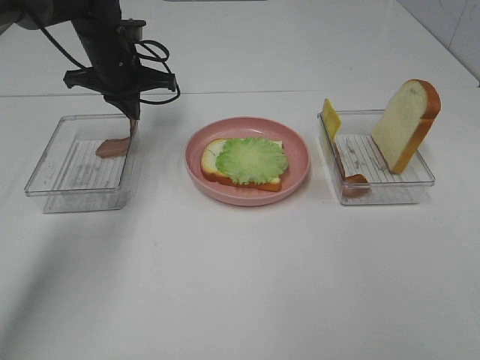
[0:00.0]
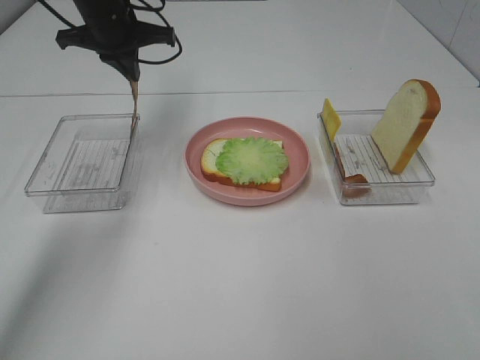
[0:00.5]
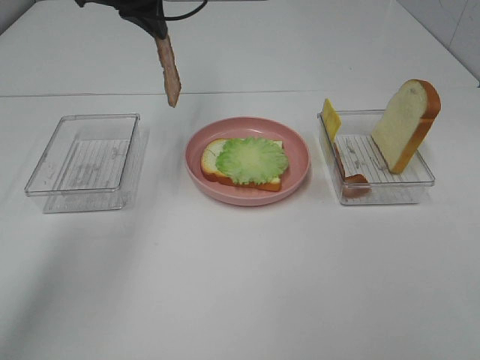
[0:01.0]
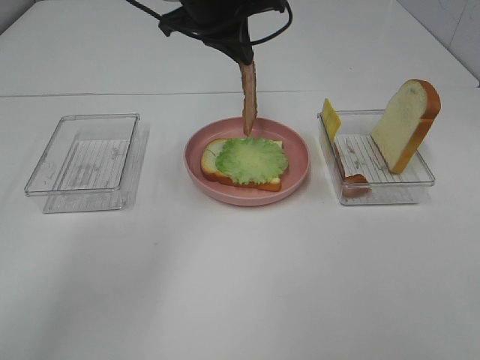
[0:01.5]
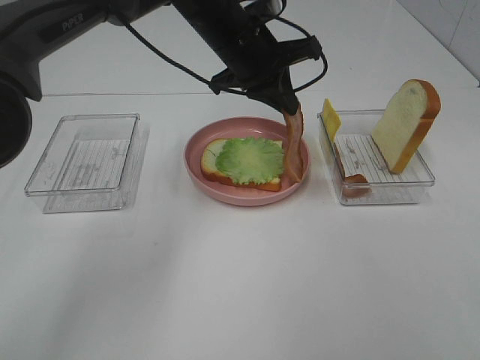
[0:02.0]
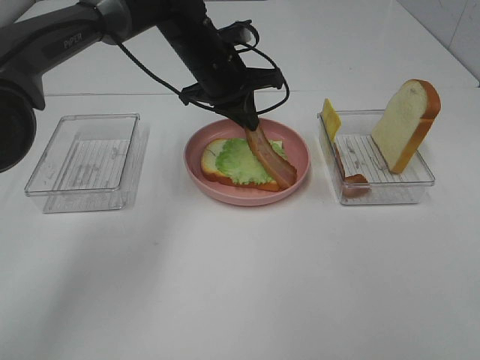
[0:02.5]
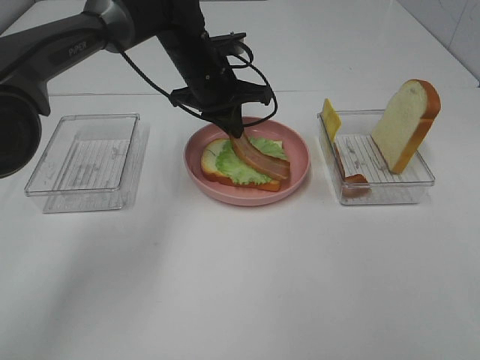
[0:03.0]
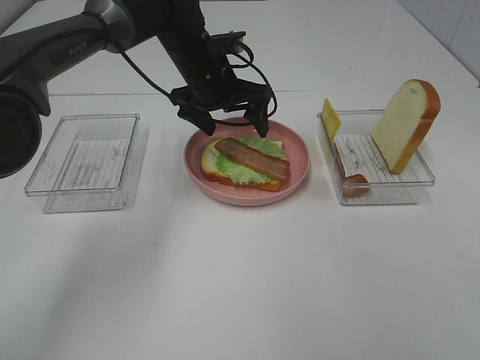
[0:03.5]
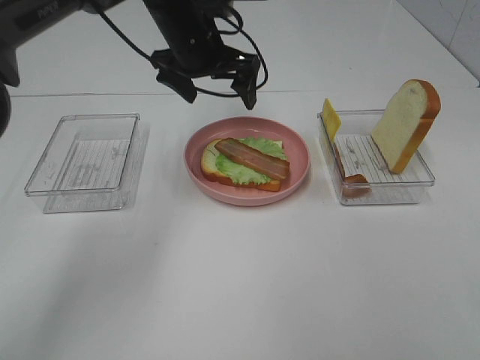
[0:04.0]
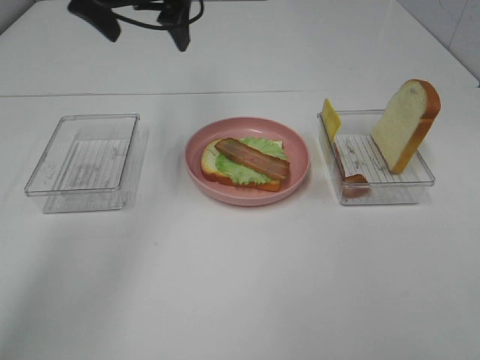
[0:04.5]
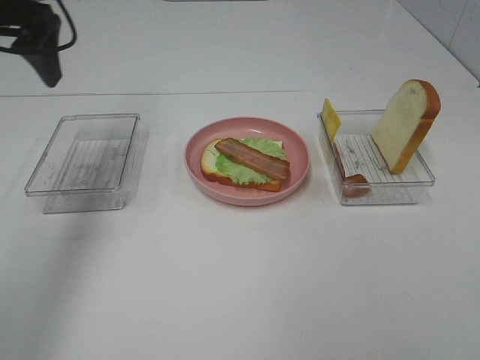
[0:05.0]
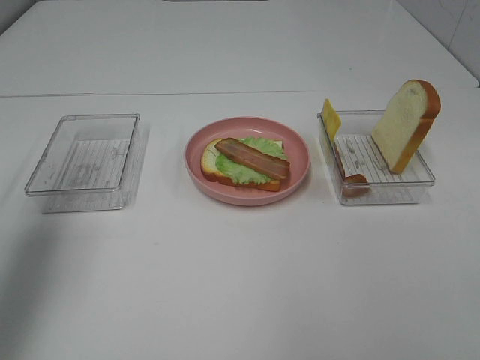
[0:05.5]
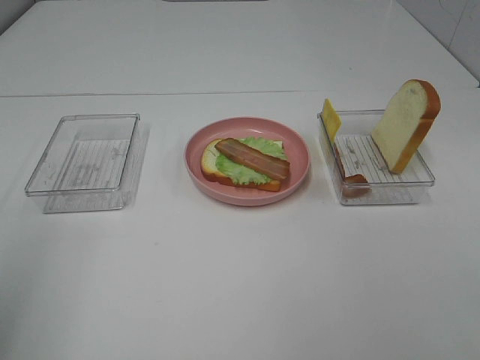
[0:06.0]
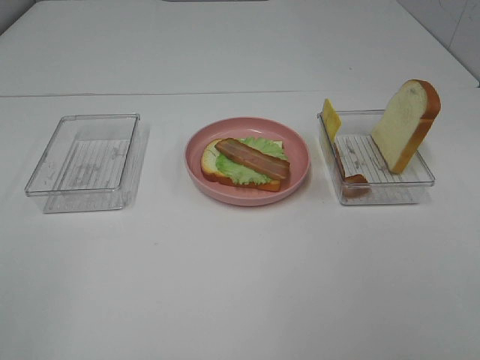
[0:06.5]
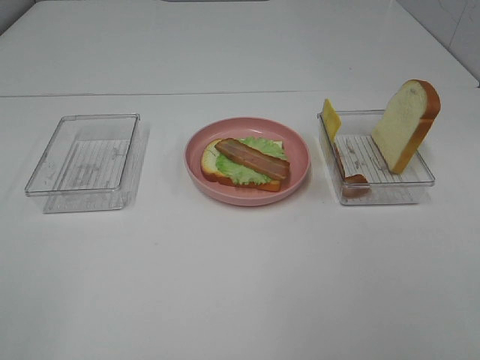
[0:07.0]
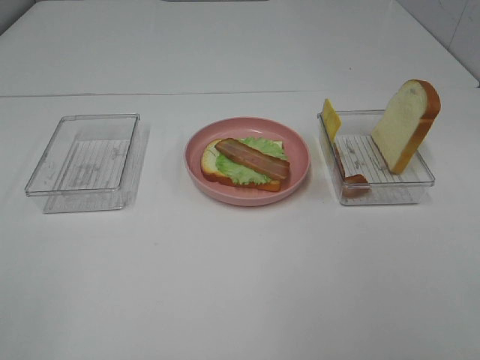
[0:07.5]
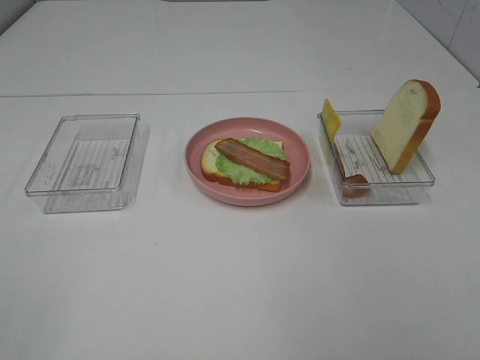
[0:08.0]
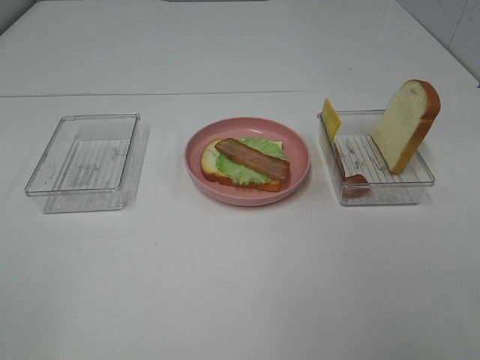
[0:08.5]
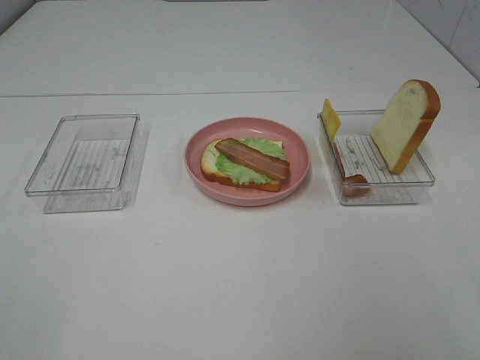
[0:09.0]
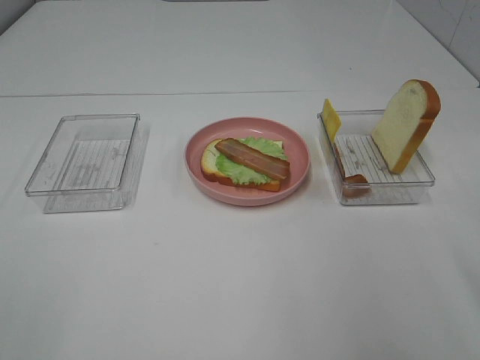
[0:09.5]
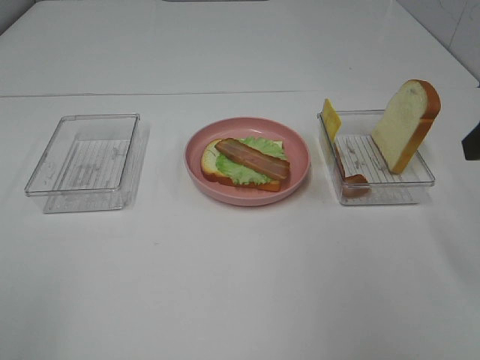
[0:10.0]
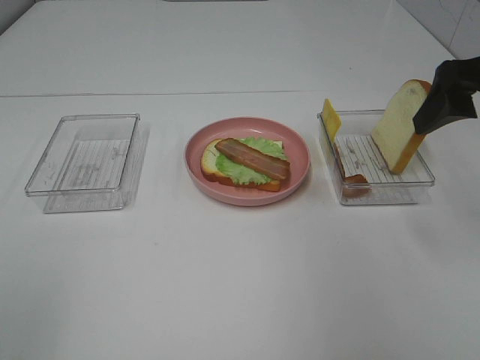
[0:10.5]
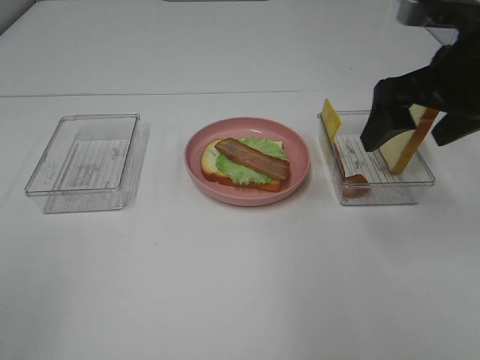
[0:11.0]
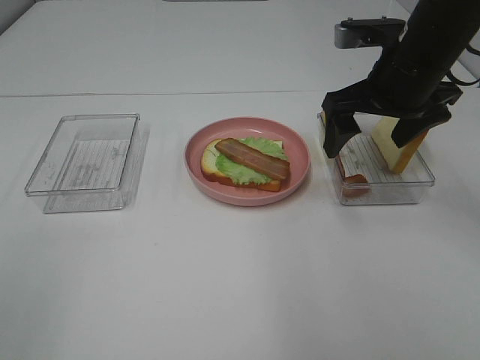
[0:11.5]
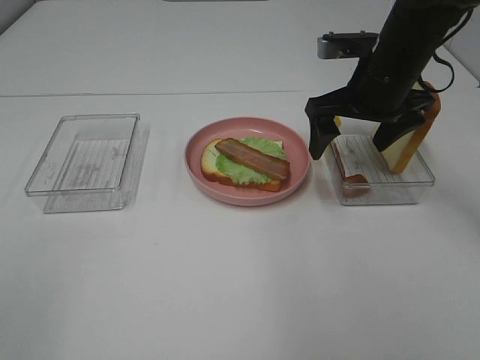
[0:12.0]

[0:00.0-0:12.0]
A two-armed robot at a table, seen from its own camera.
Task of the whole recording: Make sandwiches.
Step, 0:00.5 to 0:03.5: Left hand:place bacon on lettuce slice.
0:00.0 to 0:02.0: The left gripper is displaced to the right by approximately 15 cm.
0:02.0 to 0:04.0: The left gripper travels to the left by approximately 5 cm, and opens.
0:04.0 to 0:06.0: The left gripper is displaced backward and to the left by about 50 cm.
0:10.0 to 0:12.0: The right gripper moves forward, to the left and downward, some 20 cm.

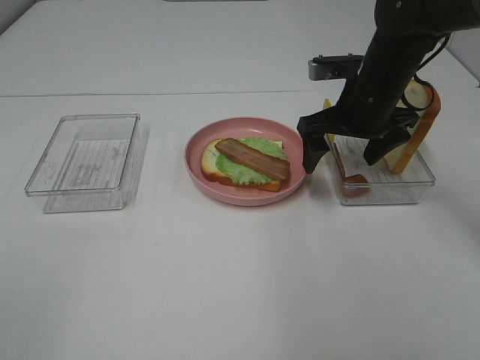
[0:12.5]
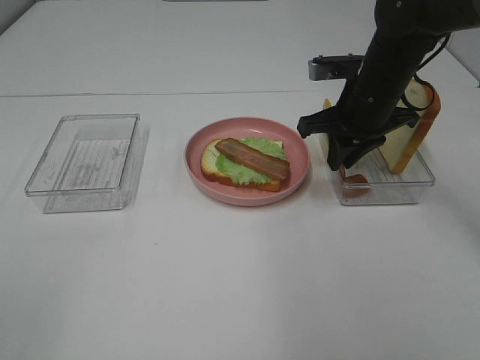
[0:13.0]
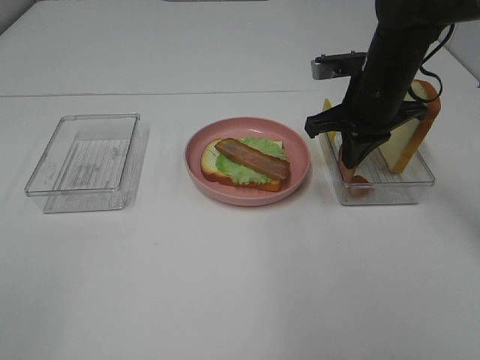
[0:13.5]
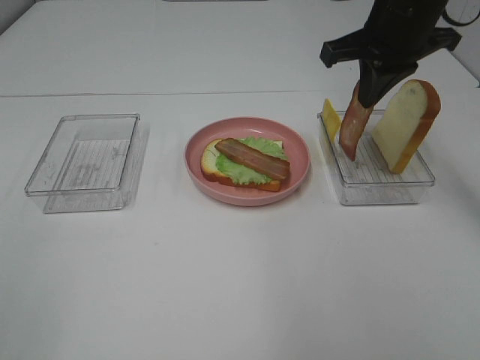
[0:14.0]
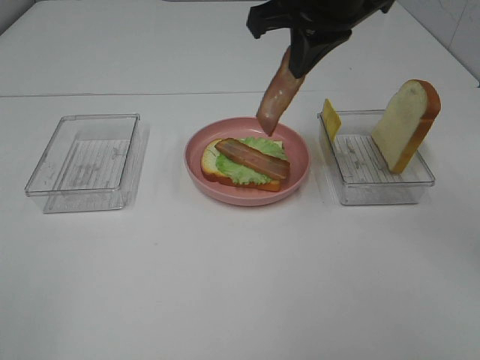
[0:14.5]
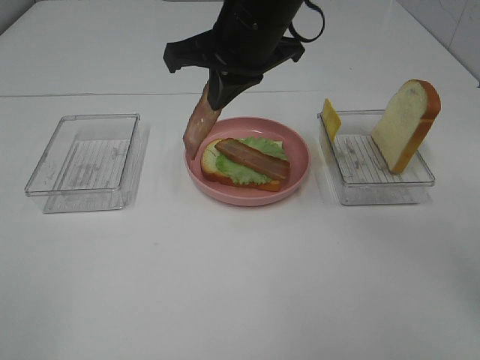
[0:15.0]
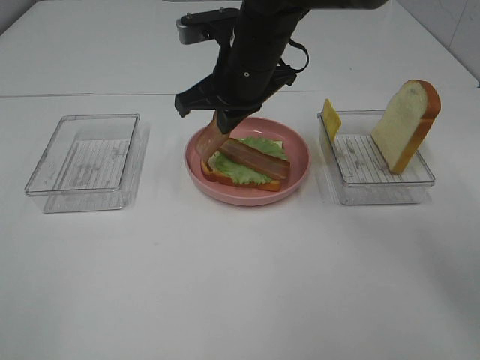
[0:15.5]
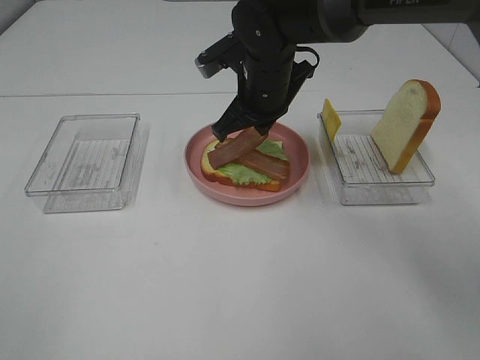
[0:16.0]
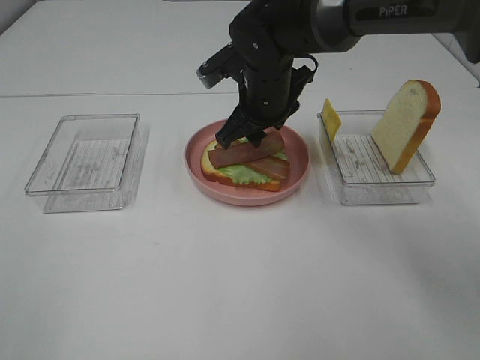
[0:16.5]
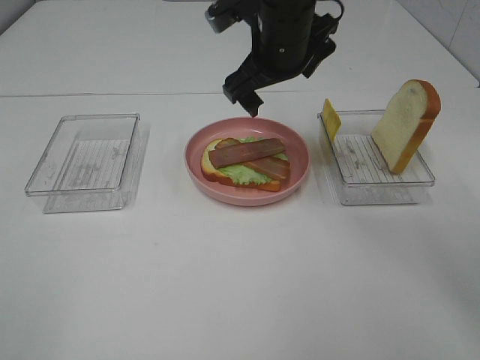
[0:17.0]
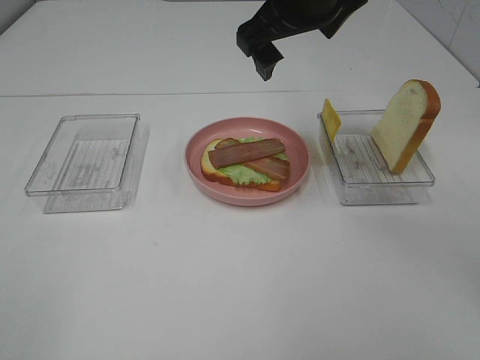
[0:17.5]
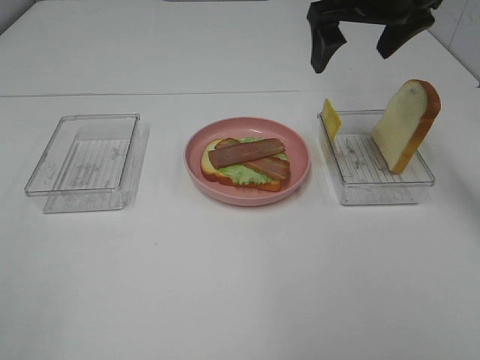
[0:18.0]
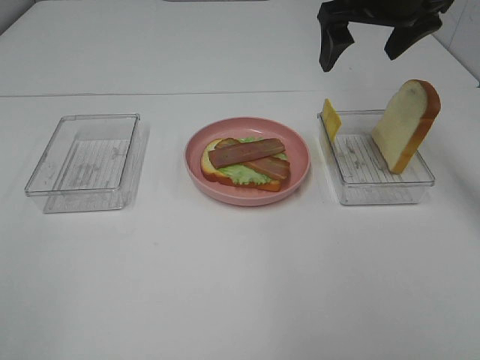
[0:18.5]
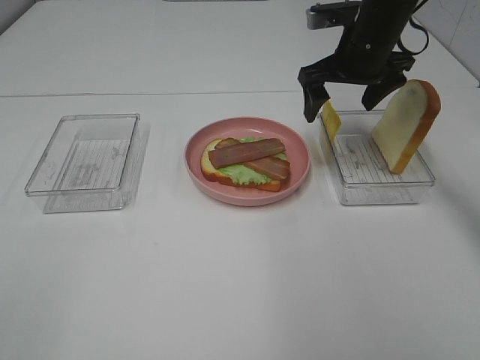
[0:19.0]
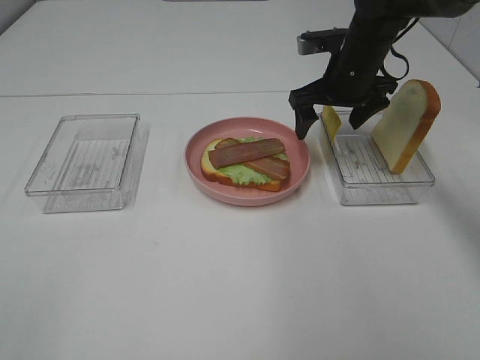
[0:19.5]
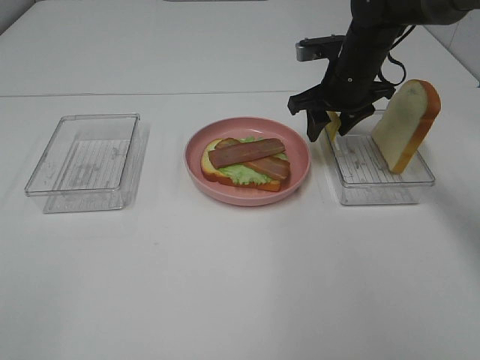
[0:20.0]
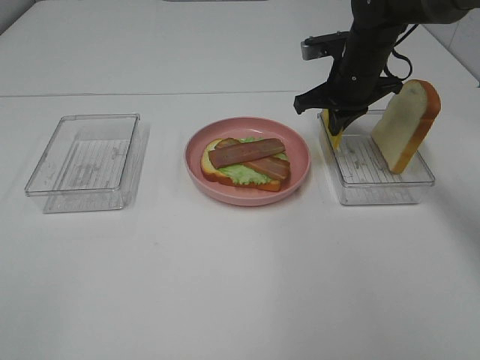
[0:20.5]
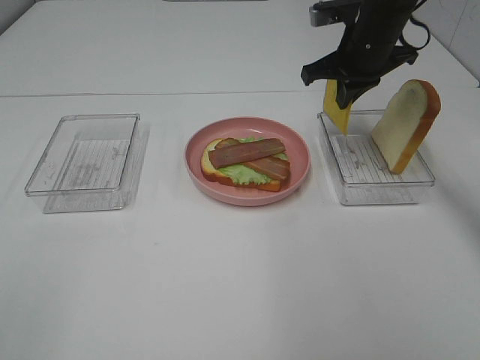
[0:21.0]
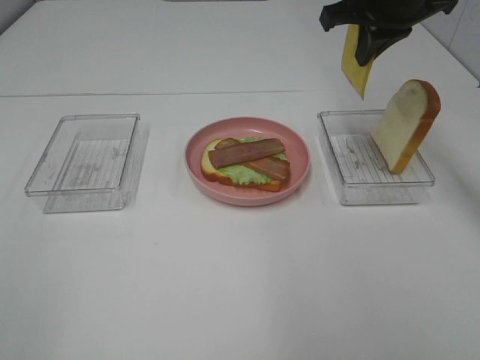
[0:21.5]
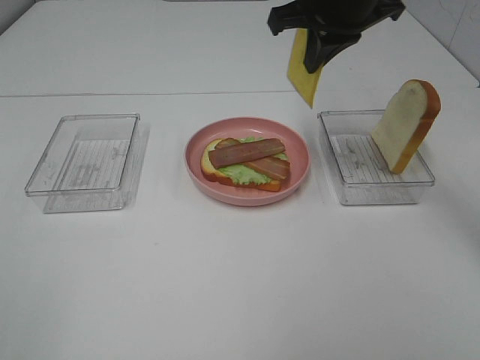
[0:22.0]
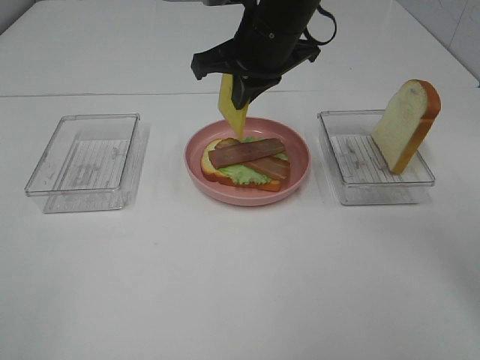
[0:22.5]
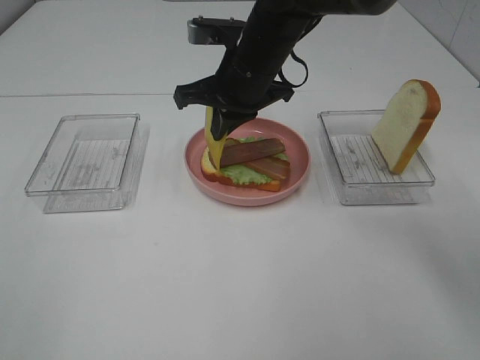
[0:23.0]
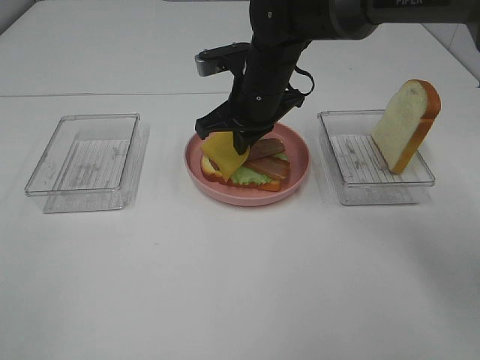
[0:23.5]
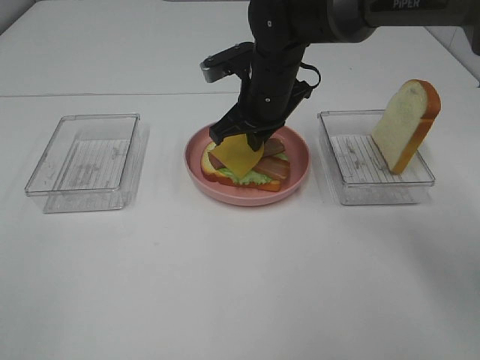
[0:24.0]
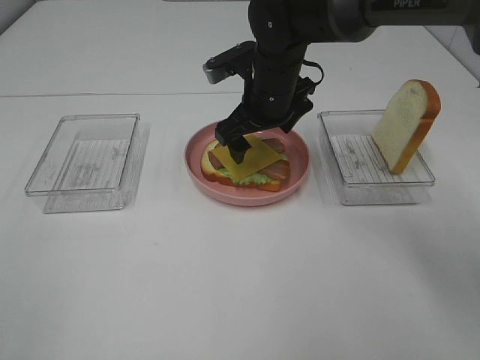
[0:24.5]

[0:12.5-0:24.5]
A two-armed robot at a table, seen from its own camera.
Task of the whole recording: Make sandwiches.
Step, 0:14.0 to 0:17.0: Right hand:place bacon on bacon.
Step, 0:17.5 to 0:20.5: Right hand:grab the cheese slice.
0:12.5 to 0:14.5: The right gripper is displaced upward and to the left by some 15 cm, and closes its fingers.
0:14.5 to 0:16.5: The right gripper travels downward by some 15 cm, and opens up.
0:16.5 to 0:18.5: The right gripper heads to the right and upward, covering some 20 cm, and opens.
0:18.5 to 0:20.5: The right gripper moves downward, about 15 cm, and closes up.
0:20.5 to 0:22.5: The right gripper moves to the left, upward and backward, approximately 15 cm.
0:22.5 to 0:24.5: The right gripper is displaced downward by approximately 10 cm, and opens.

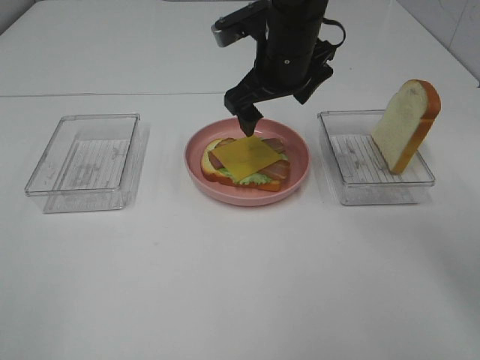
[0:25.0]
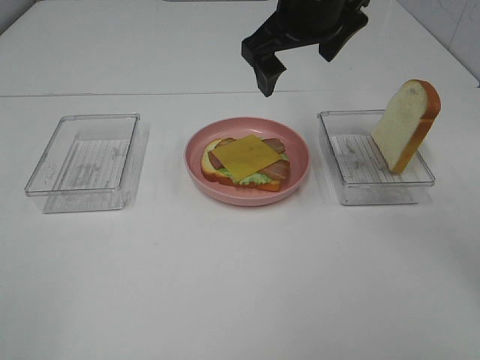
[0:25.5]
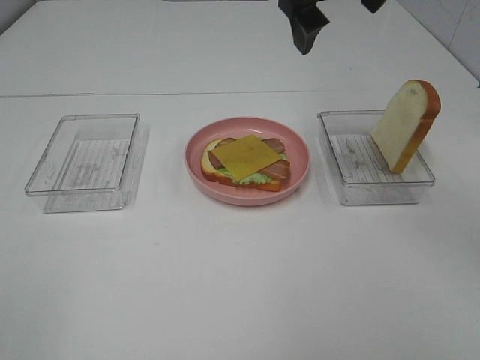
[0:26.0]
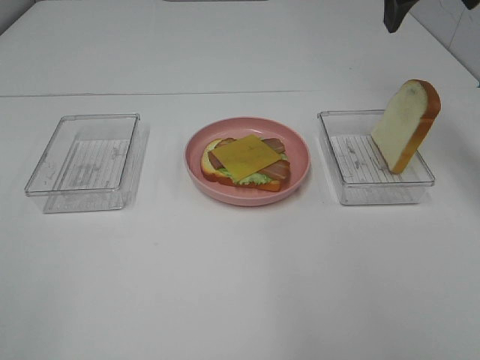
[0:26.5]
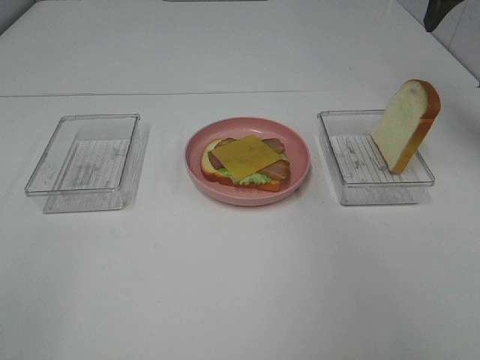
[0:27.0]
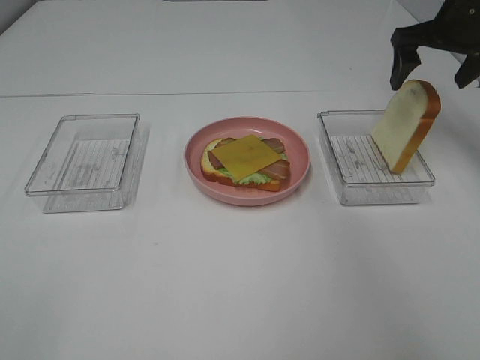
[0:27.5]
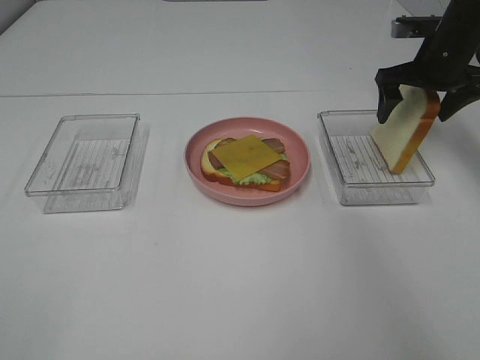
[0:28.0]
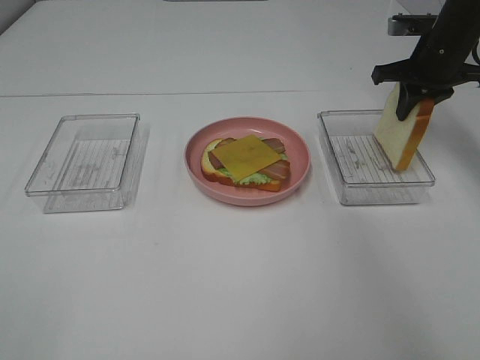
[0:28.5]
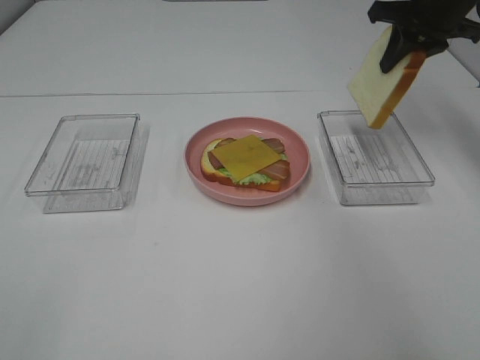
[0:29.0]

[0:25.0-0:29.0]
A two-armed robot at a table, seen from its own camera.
Task of the whole recording: Make sandwiches.
Step, 0:25.0 to 0:28.5: Right hand:grab the bread slice.
0:25.0 to 0:27.0: The right gripper goes roughly 25 cm to the right and upward.
0:27.0 to 0:29.0: The right gripper is displaced downward by roughly 5 cm, and closes its fingers.
